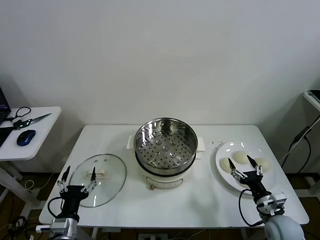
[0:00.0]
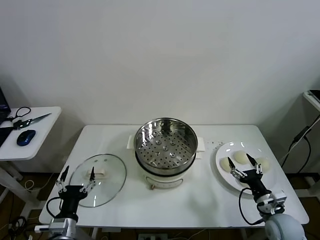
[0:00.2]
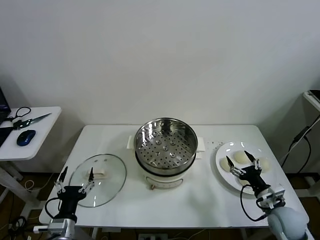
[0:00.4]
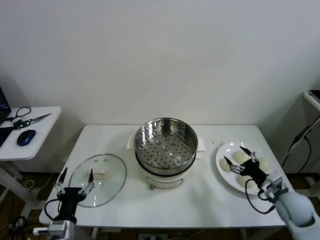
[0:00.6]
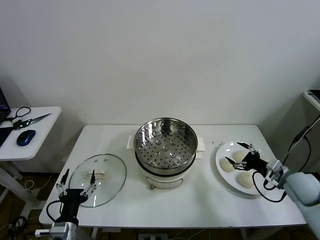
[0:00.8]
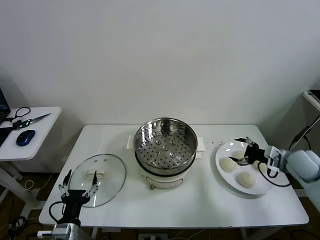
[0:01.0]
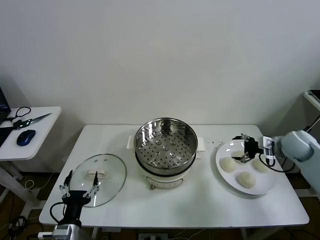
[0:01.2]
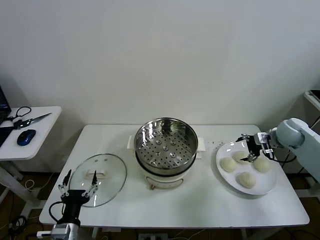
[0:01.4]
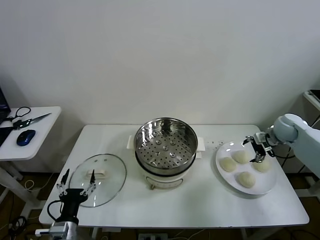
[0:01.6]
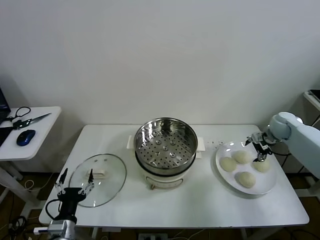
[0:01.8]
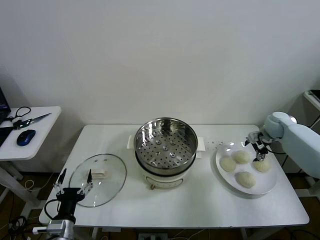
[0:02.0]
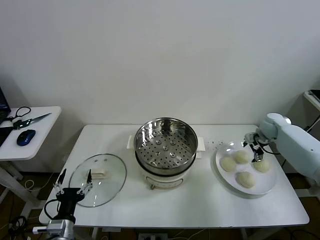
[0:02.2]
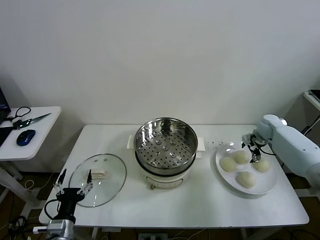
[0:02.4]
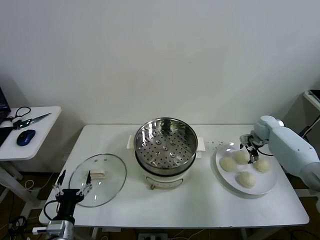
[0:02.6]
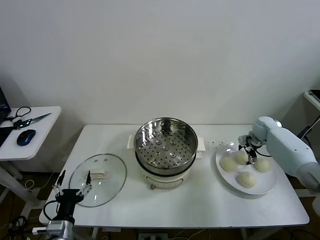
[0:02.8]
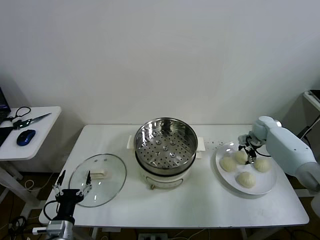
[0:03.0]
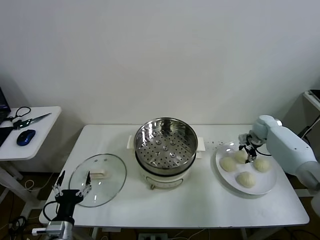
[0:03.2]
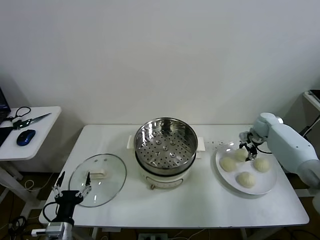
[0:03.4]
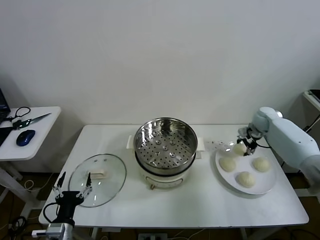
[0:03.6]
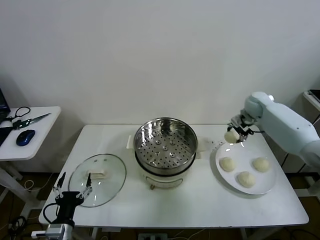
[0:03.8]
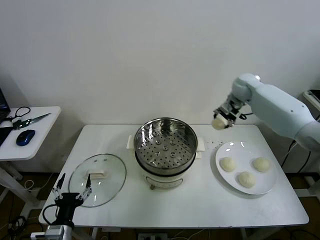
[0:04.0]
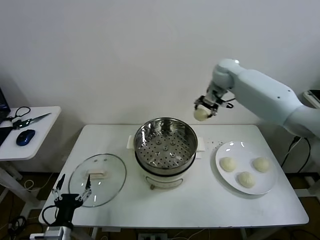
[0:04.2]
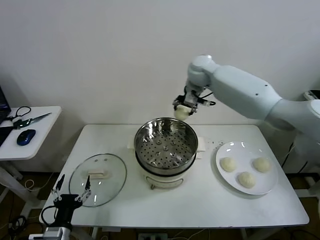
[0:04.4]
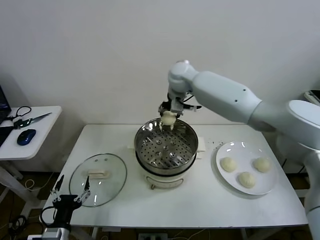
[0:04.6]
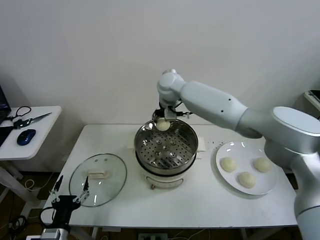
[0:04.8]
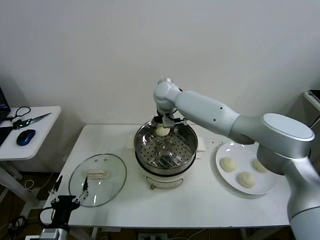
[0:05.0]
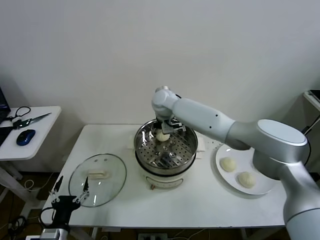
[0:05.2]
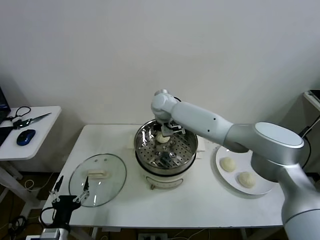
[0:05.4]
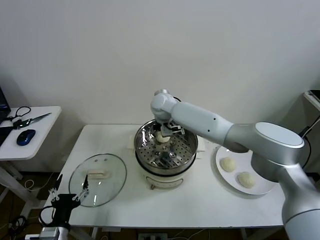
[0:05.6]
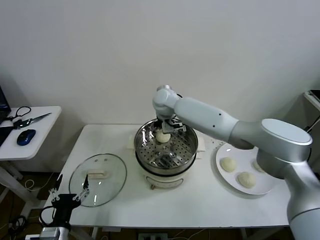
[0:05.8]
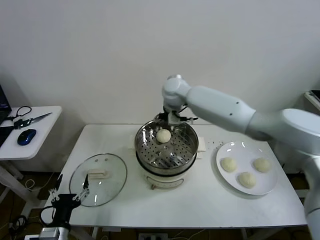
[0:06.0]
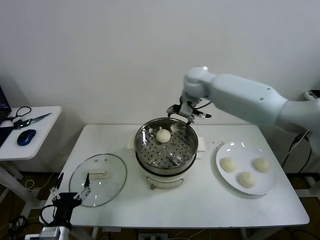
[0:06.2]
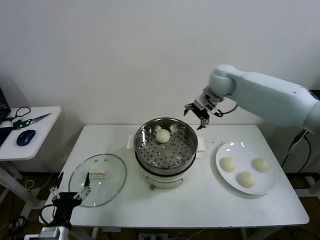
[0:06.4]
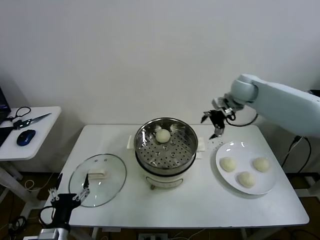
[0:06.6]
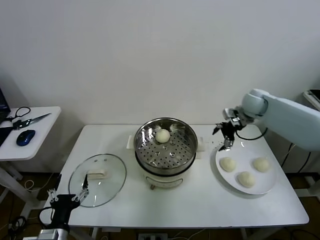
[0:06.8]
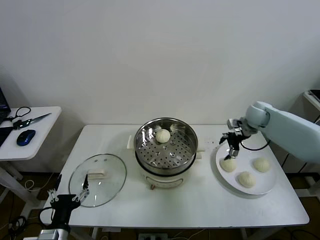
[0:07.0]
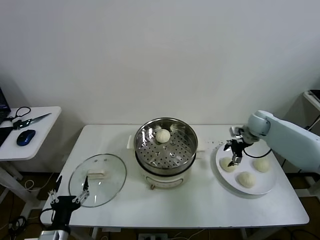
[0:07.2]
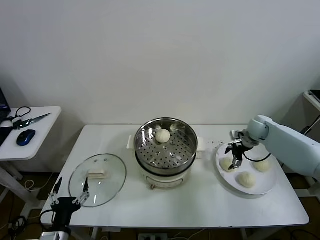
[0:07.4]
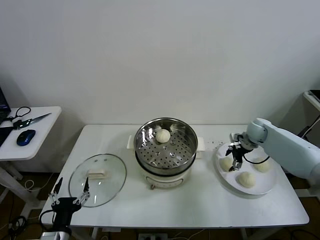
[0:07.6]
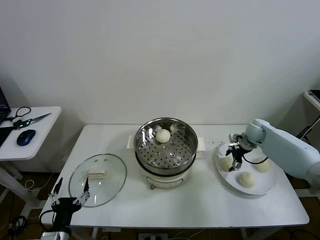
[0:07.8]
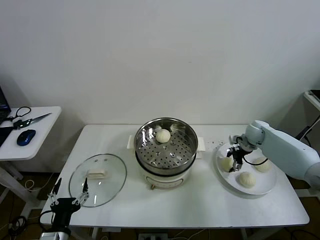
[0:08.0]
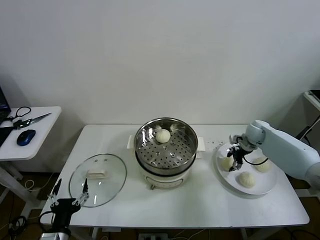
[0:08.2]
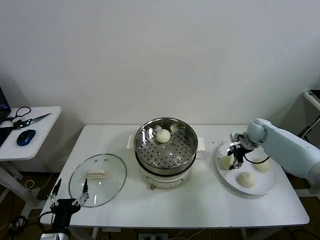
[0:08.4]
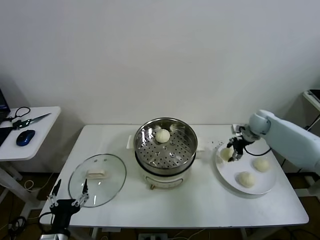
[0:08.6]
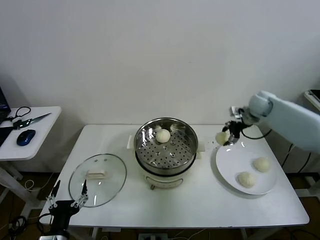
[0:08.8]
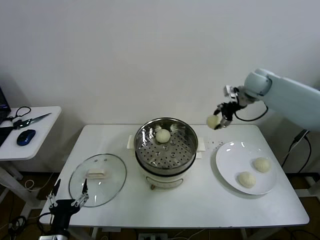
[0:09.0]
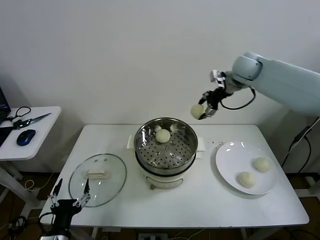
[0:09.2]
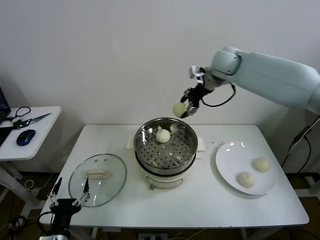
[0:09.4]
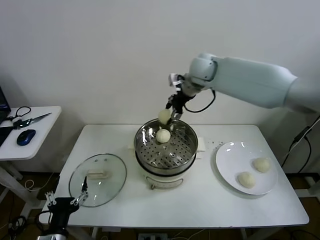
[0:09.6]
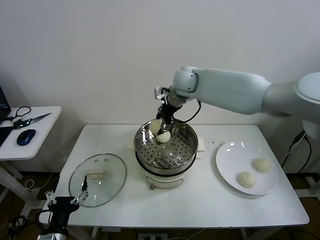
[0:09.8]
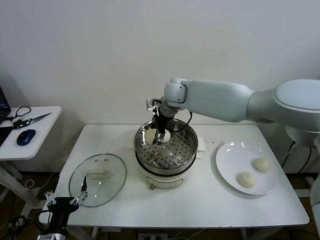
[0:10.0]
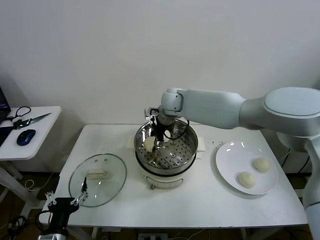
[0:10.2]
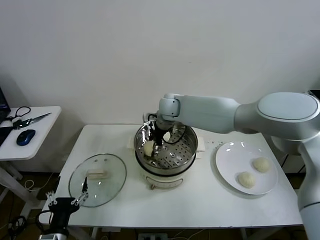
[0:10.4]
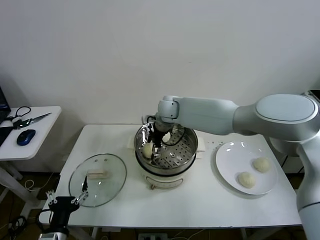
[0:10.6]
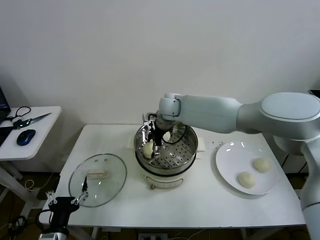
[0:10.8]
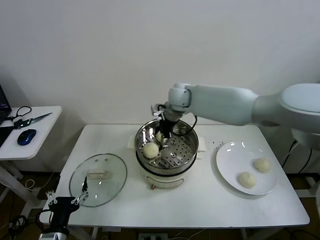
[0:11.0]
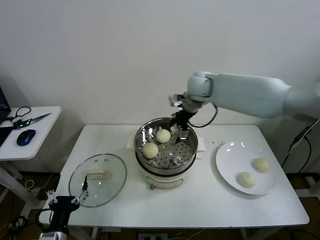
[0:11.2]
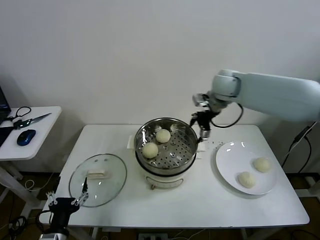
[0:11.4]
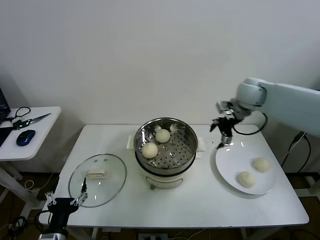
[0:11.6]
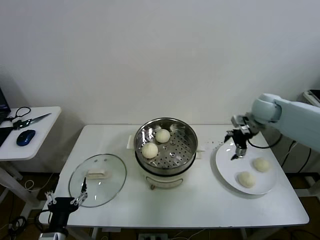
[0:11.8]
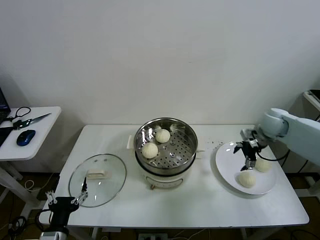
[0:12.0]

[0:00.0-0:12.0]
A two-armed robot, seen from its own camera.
Task of the whole recording: take steamed baozi put them in steamer then cover it.
Step, 0.0 to 3.0 s: Grasp the baozi in the plate with right gripper.
Step, 3.2 to 5.6 s: Place the baozi on the steamer with right gripper.
Step, 5.8 to 8.2 s: Grasp the baozi in the plate with right gripper.
Step, 8.4 to 10.6 s: Place the baozi on the steamer with right gripper.
1.6 to 3.0 s: The right gripper goes roughly 10 cm downward and forward, and closes.
3.0 to 4.4 s: The right gripper is displaced to the left and upward by some 40 cm.
4.4 to 6.0 s: The right gripper moves about 10 cm downward and comes back, and opens its fingers.
6.0 to 7.6 s: The right gripper heads to the right and downward, covering some 40 cm.
7.6 to 9.0 s: The right gripper travels upward by about 25 cm, and closes its fingers.
9.0 to 10.4 s: The right gripper moves to the left, roughly 30 cm.
10.4 to 12.0 s: The right gripper heads to the right, covering some 35 cm, and opens up.

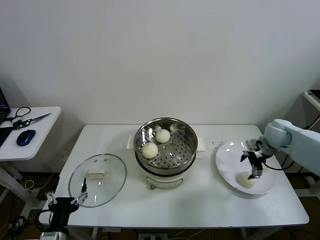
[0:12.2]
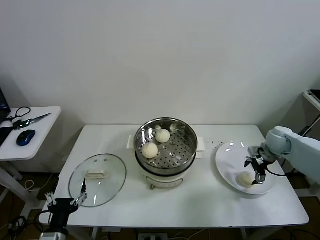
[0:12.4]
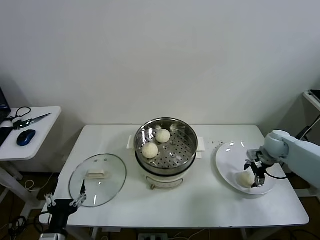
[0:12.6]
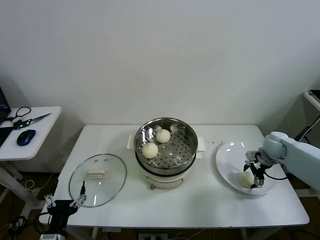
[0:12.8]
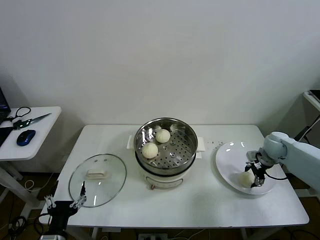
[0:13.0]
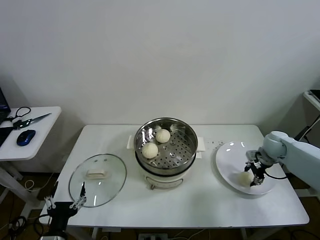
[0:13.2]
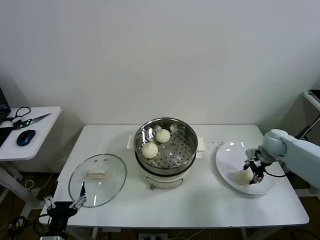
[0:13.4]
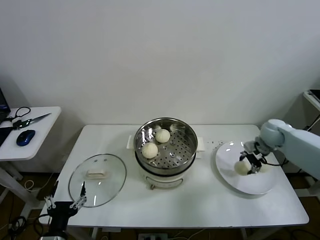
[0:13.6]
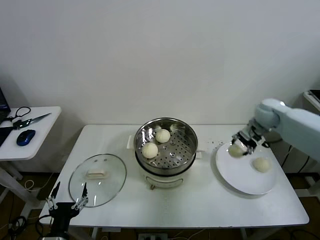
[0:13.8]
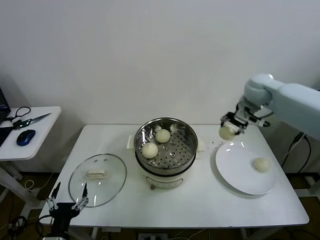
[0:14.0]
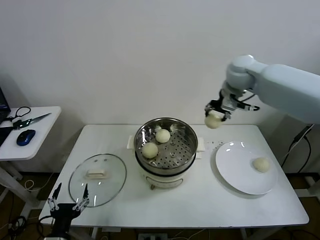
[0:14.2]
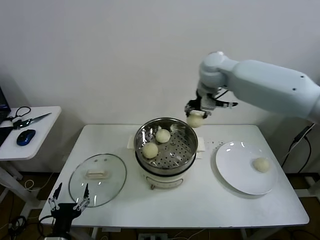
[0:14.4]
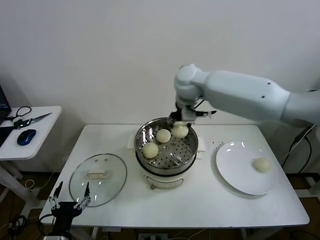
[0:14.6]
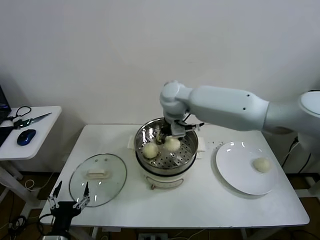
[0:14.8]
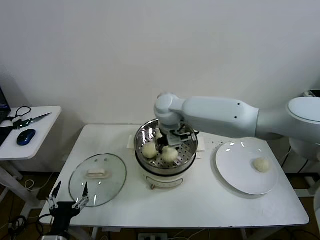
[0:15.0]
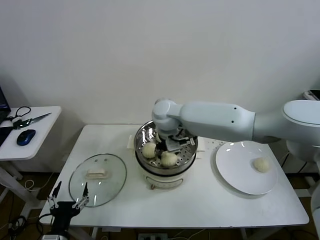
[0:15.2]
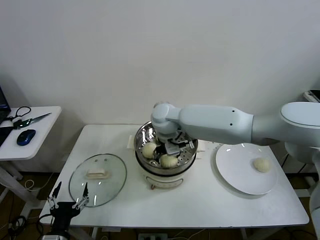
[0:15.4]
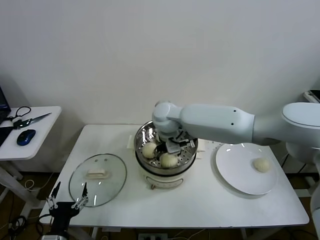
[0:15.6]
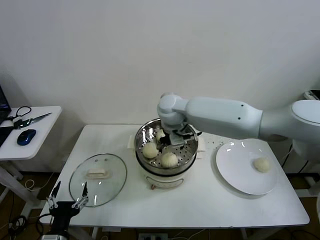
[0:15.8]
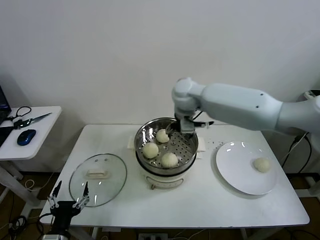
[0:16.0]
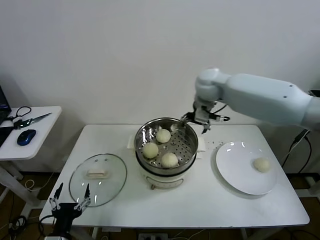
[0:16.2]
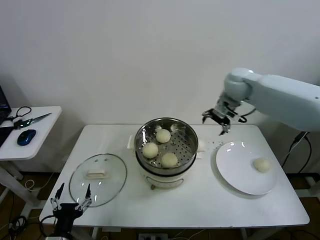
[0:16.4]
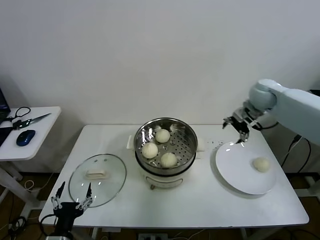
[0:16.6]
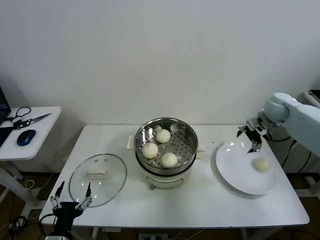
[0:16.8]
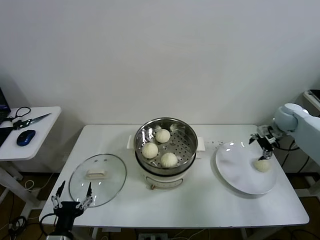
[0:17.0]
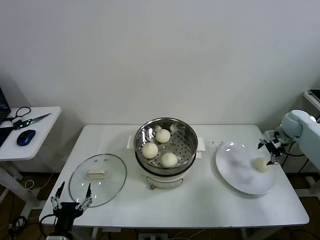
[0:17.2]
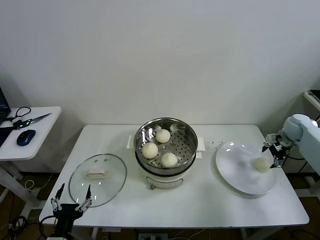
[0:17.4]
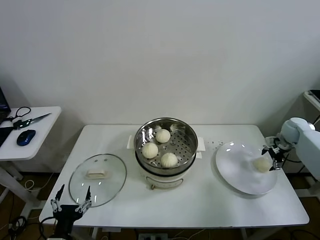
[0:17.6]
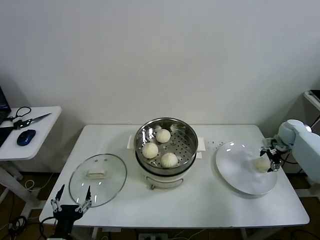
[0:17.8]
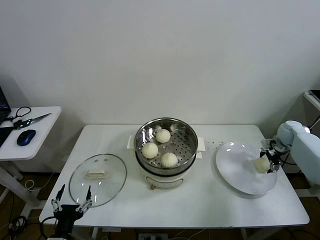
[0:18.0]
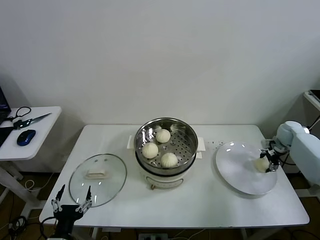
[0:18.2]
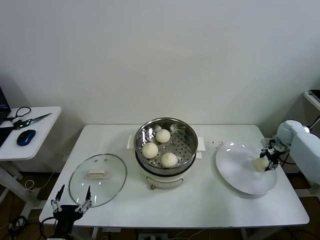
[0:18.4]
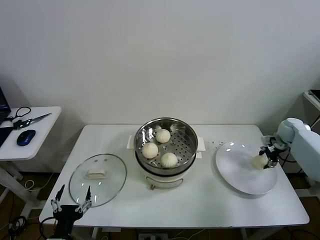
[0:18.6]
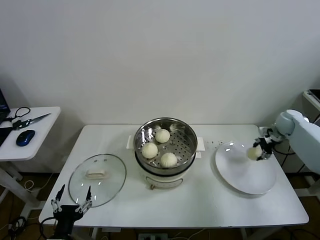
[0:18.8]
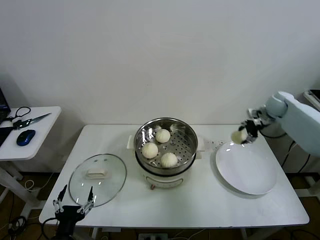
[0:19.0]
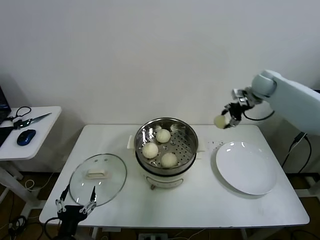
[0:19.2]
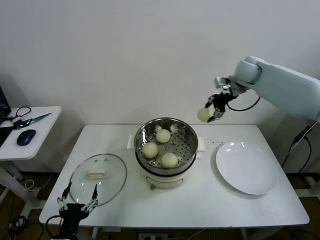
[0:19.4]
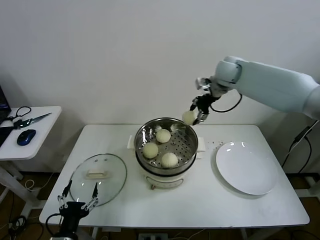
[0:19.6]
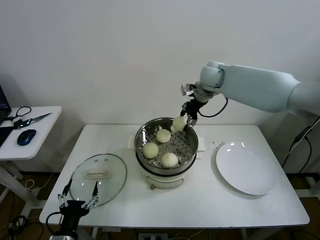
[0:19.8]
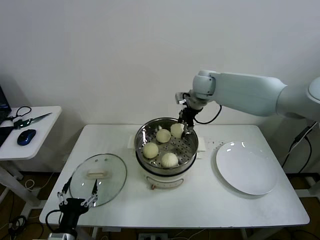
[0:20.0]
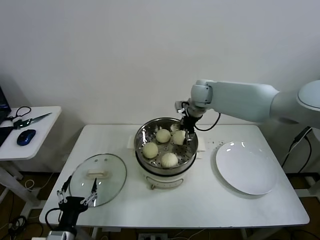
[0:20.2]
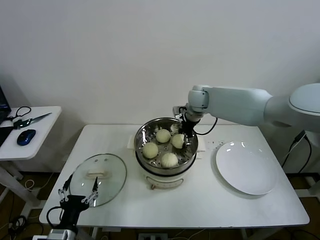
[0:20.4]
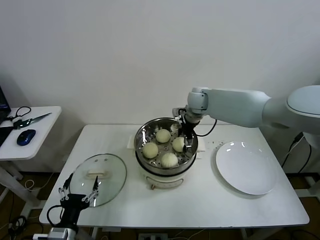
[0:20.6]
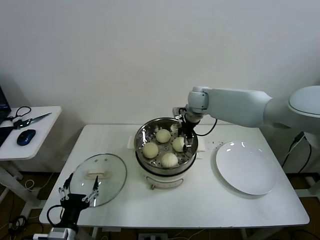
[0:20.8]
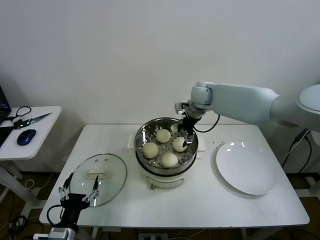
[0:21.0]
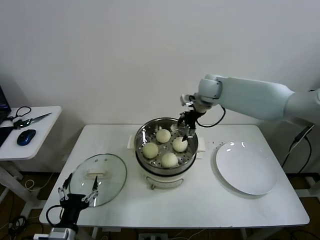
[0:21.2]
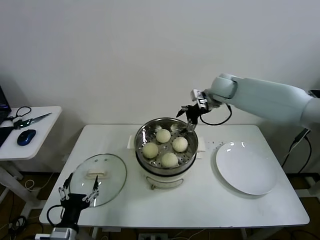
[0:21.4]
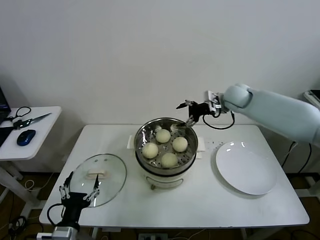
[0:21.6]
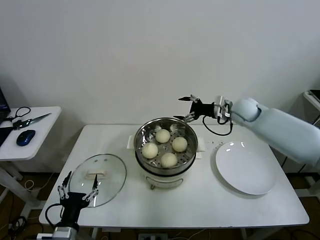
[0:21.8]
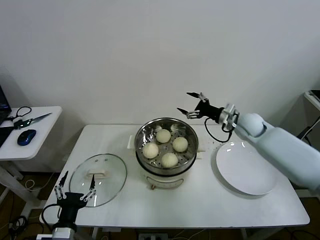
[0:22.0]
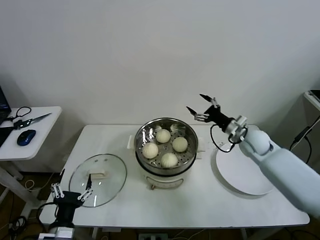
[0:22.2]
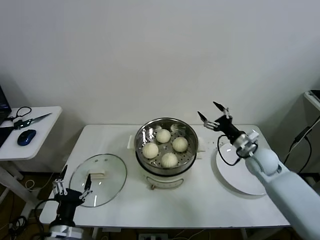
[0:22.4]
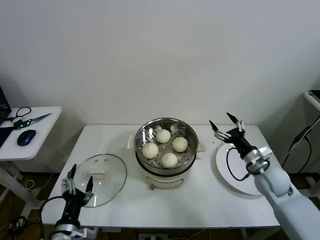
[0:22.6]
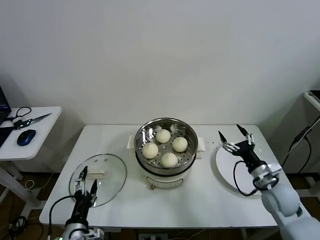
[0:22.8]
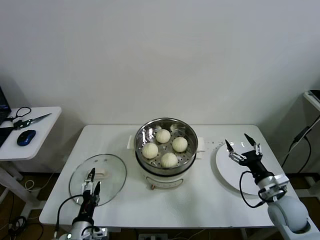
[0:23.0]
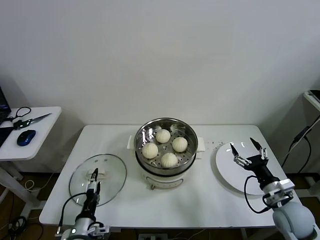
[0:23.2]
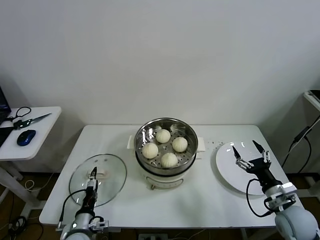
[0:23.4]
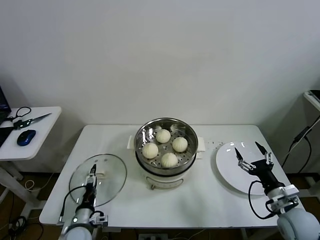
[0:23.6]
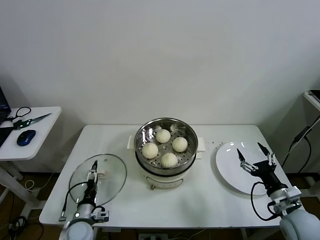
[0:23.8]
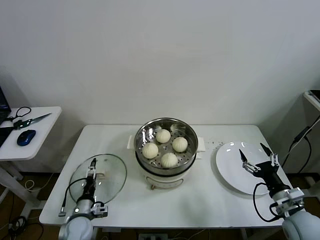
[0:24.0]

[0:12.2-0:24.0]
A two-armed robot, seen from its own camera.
Task of the whole recording: take steamed baozi put them in steamer then cover it.
Step, 13.2 to 15.4 s: Place the baozi on the steamer with right gripper.
Step, 15.8 to 18.2 s: Grasp the baozi in the plate with right gripper.
Step, 18.4 to 20.8 s: Place the baozi on the steamer with right gripper.
12.2 to 13.6 s: The right gripper closes its fingers.
13.6 to 15.2 s: The right gripper travels to the left by some 40 cm.
15.2 to 16.6 s: The right gripper travels to the right by some 35 cm, and opens.
16.6 to 18.2 s: The right gripper goes some 25 cm downward and to the right, and closes its fingers.
18.2 to 19.6 s: The right gripper moves to the left and upward, approximately 40 cm.
19.6 to 21.0 s: The right gripper moves downward and to the left, some 10 cm, and opens.
21.0 to 22.6 s: The right gripper is displaced backward, to the right and downward by about 35 cm.
22.6 to 24.0 s: The right gripper is displaced backward by some 15 cm; the left gripper moves downward and forward, roughly 15 cm.
